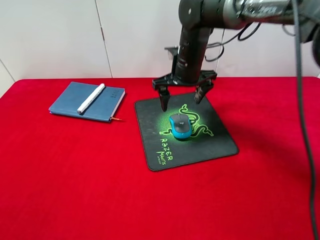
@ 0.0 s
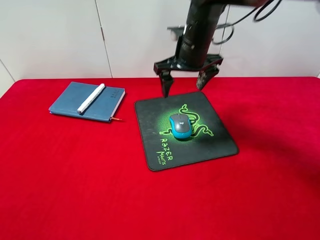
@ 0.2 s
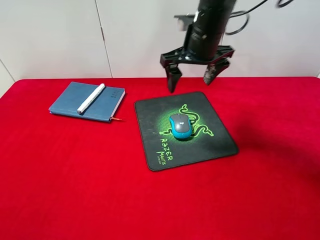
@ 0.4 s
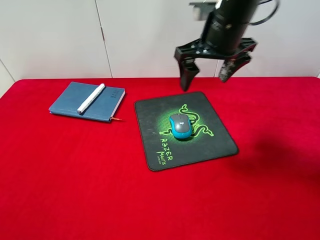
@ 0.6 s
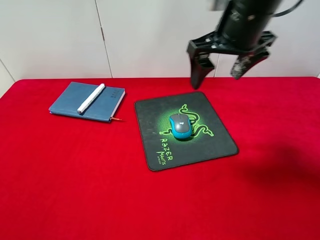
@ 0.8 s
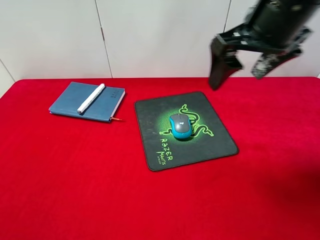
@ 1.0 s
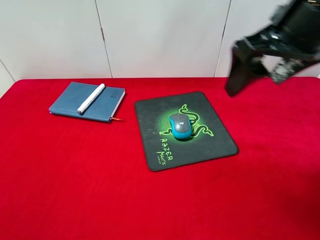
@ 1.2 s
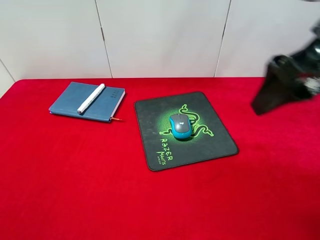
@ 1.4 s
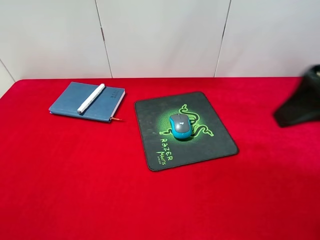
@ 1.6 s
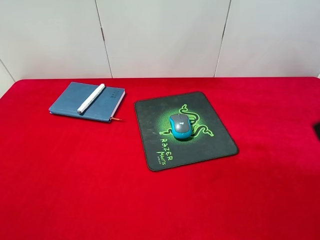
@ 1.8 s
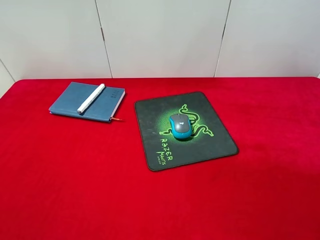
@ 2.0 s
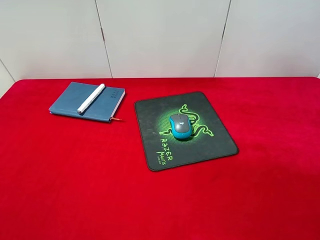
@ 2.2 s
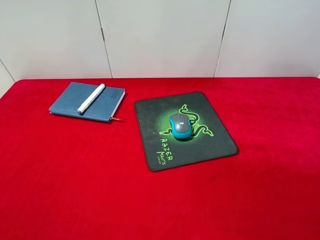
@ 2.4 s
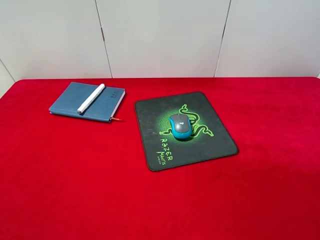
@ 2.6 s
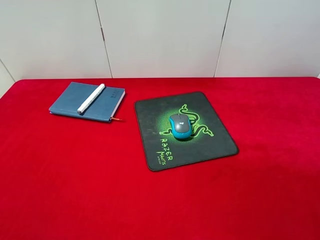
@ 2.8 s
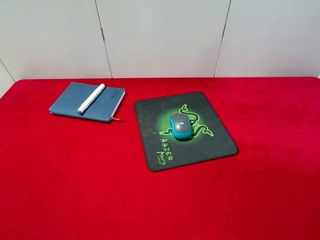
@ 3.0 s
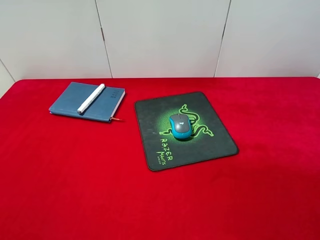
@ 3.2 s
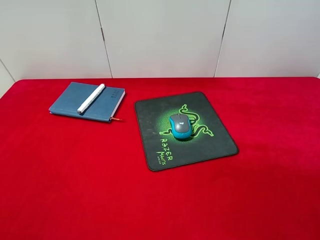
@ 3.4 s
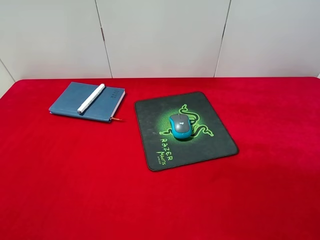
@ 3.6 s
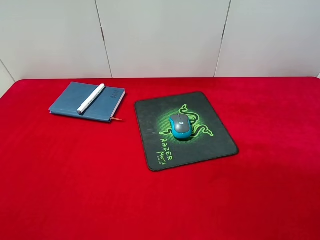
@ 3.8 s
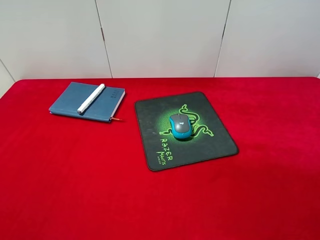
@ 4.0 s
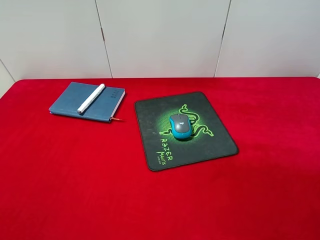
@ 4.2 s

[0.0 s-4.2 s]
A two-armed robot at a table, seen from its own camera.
0.0 to 1.4 s: The right gripper travels backward, upward and to the right by about 30 cm.
1.4 to 2.8 s: The right gripper travels backward, to the right and downward by approximately 20 cm.
2.8 to 4.2 s: Both grippers stay about where they are.
